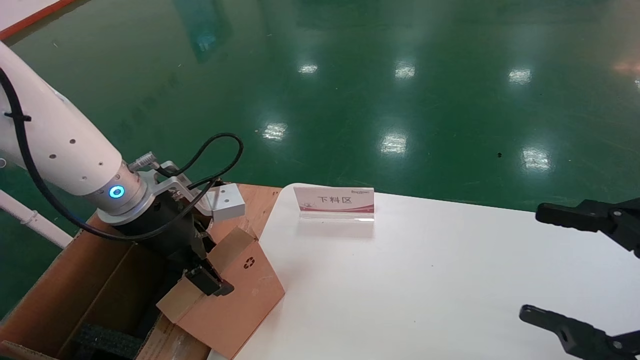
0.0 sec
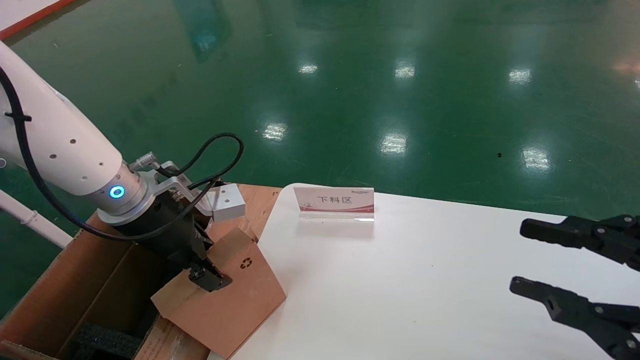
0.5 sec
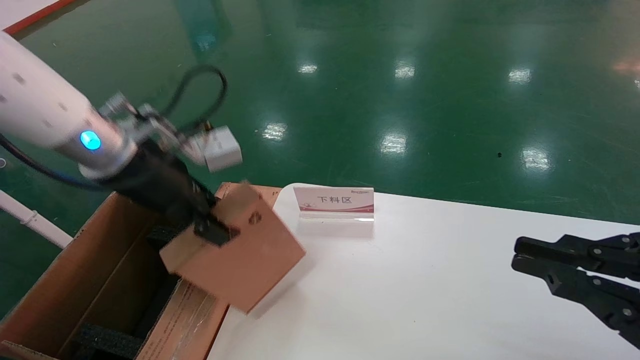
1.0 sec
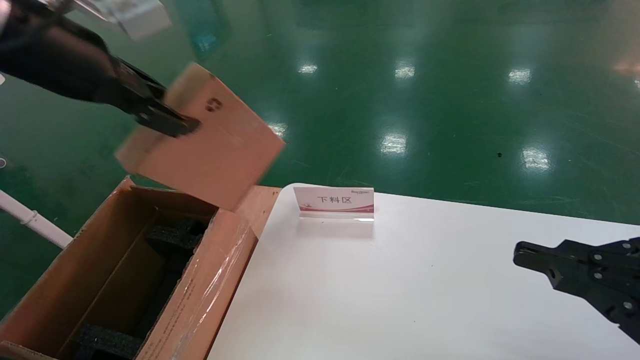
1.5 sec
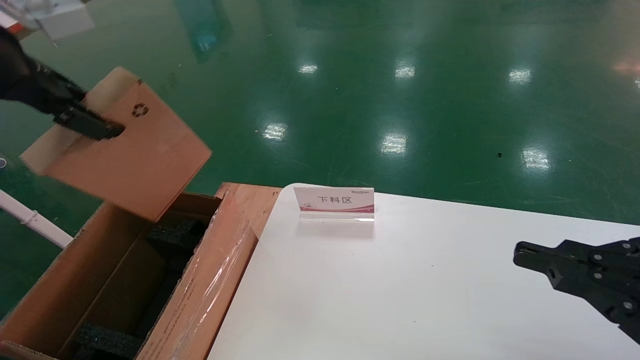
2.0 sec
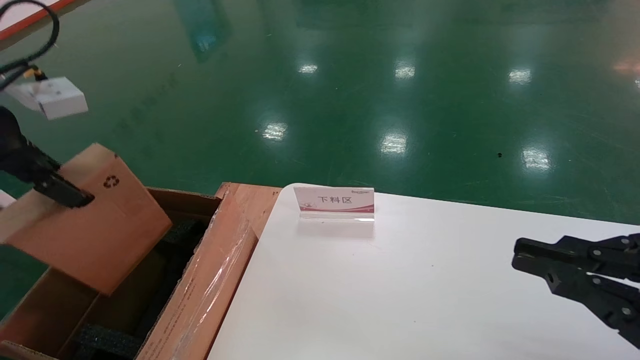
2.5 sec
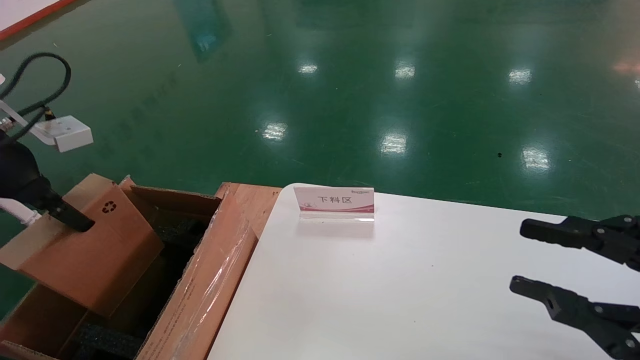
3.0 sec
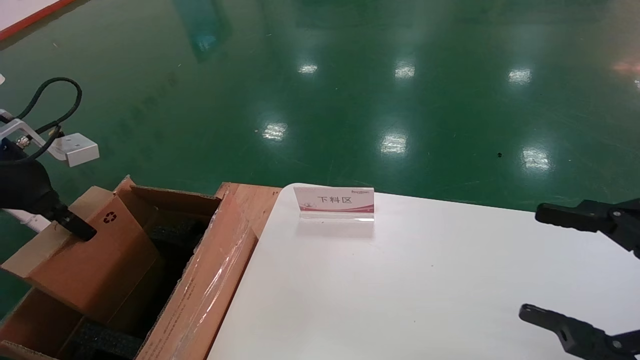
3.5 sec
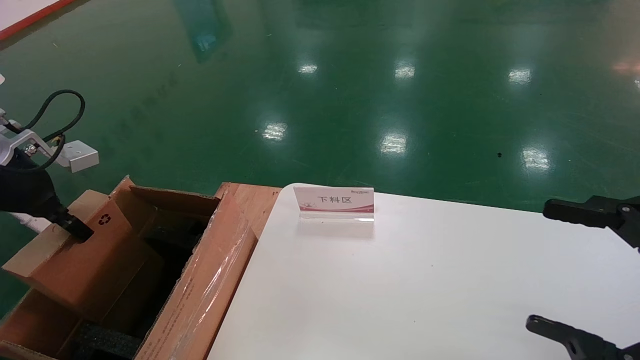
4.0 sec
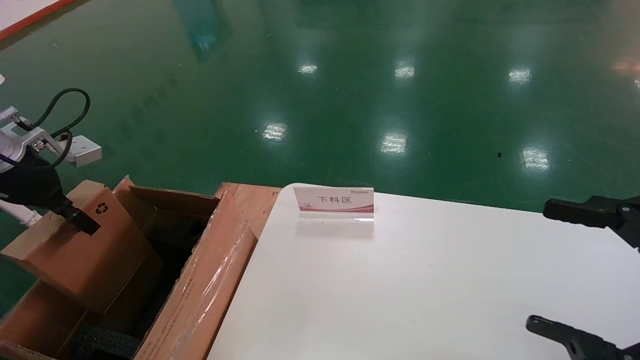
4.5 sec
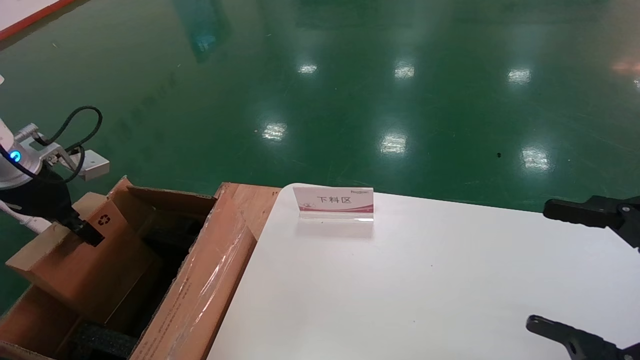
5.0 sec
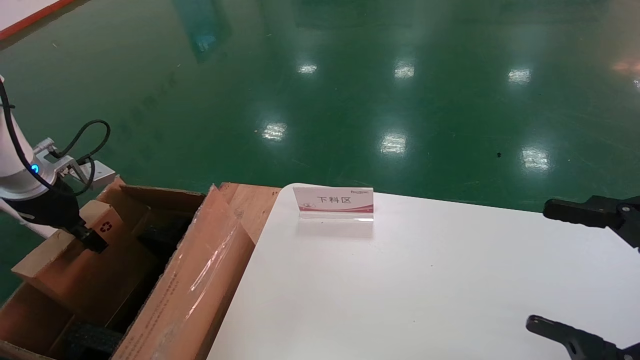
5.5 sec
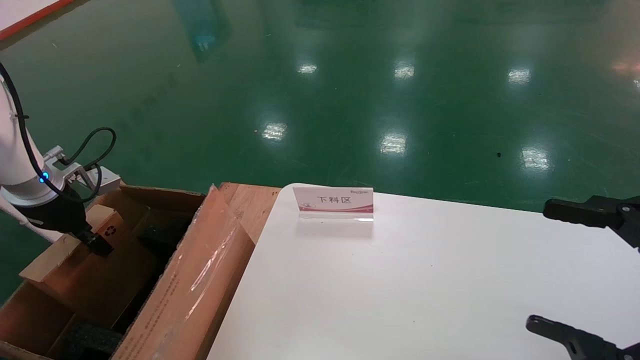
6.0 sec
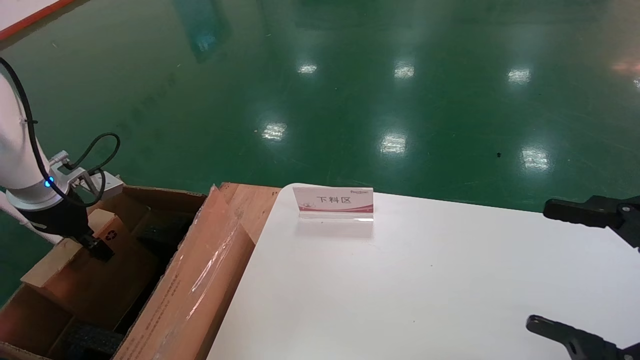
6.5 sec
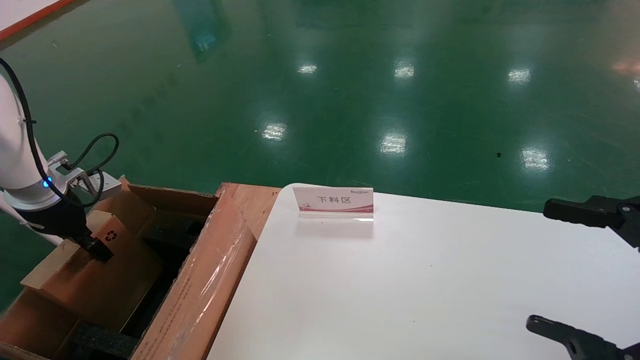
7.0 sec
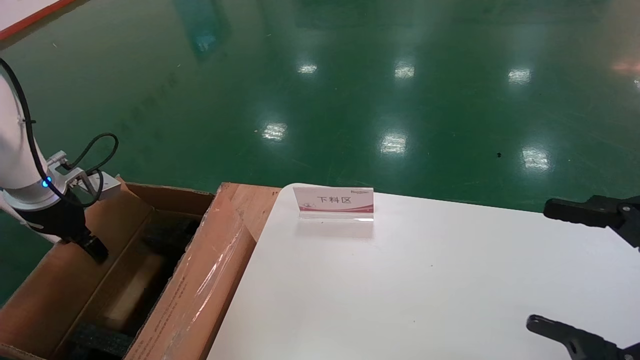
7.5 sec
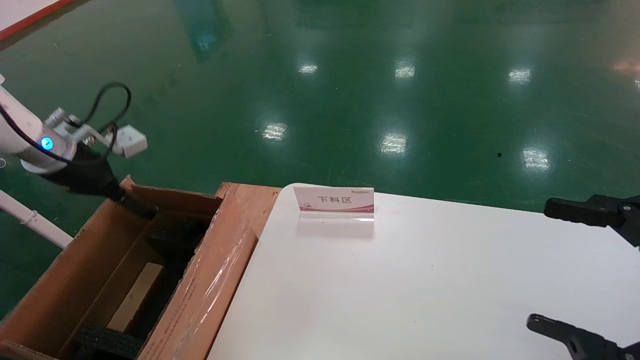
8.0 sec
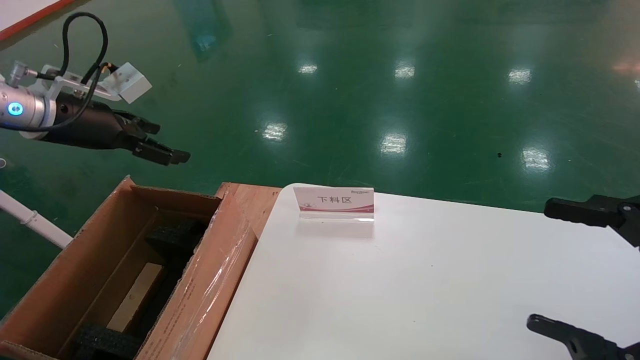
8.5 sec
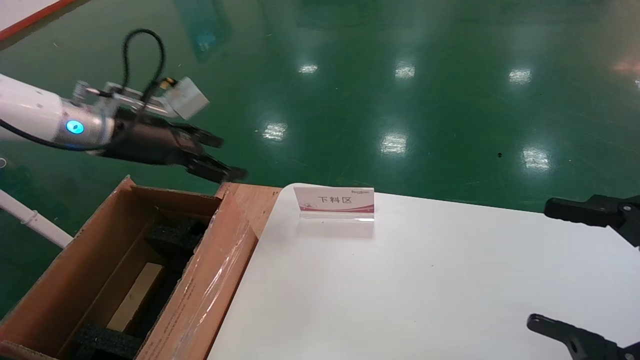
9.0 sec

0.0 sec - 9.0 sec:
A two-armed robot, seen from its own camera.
Task of the whole recording: pick up the small cardboard box and load it into the large cardboard box.
Step, 1.0 sec - 7.5 sec: Place the mouse and power cord box into the case.
0.0 sec - 2.0 sec: The right gripper closes its fingers, while the left gripper is displaced upward, to the left and backward by some 25 cm, and closes up.
2.0 sec - 4.5 sec: The right gripper opens, while the left gripper shifts about 20 cm downward, to the left and forward.
4.5 sec - 7.0 sec: The left gripper moves downward, approximately 5 cm.
7.0 sec - 9.0 sec: The left gripper heads to the right and upward, covering about 15 cm, and opens.

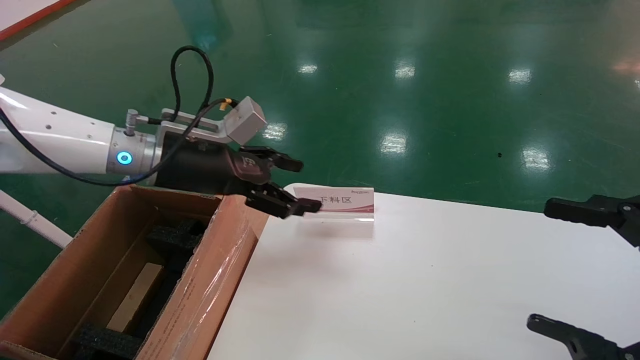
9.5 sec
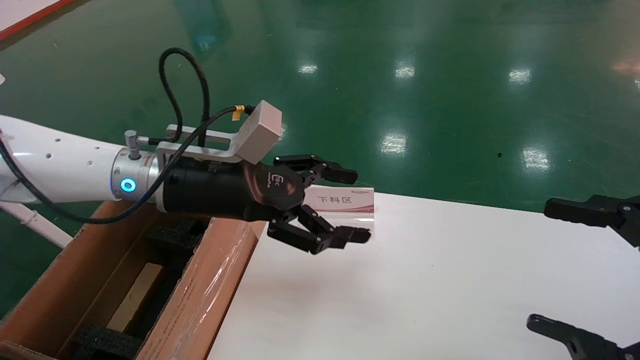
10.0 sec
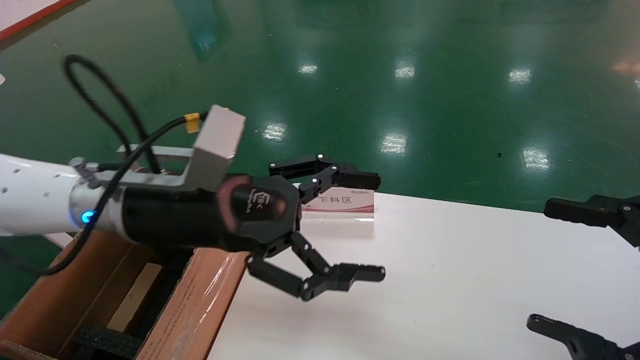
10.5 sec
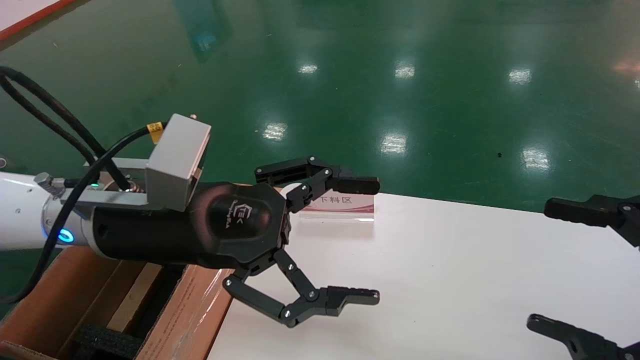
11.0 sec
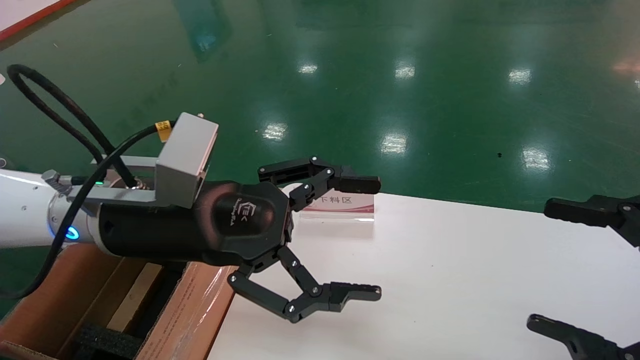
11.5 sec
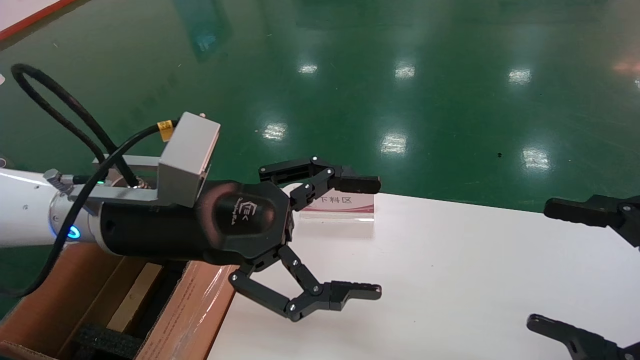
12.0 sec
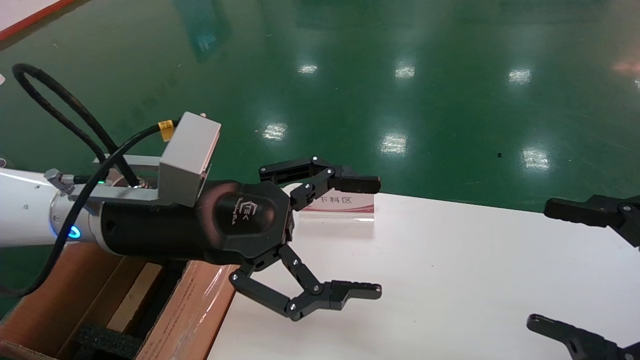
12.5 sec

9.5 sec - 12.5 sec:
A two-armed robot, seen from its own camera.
Task of the whole recording: pick up the small cardboard box and load it into the large cardboard box.
9.5 sec - 11.0 sec: The left gripper is displaced backward and to the right by roughly 15 cm.
11.0 sec - 12.5 sec: The two grippers keep their place.
